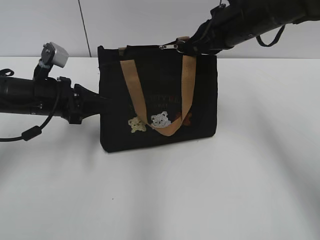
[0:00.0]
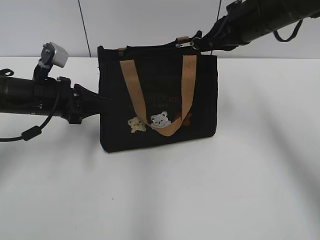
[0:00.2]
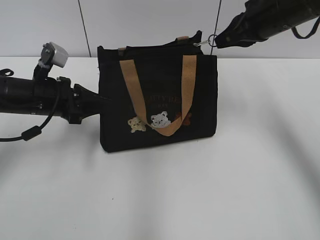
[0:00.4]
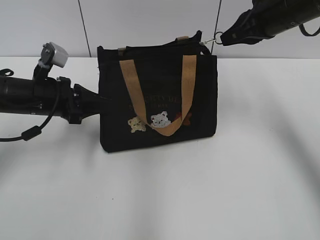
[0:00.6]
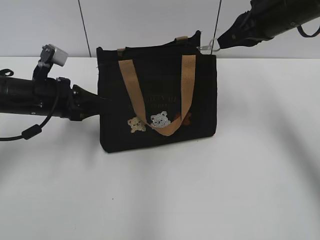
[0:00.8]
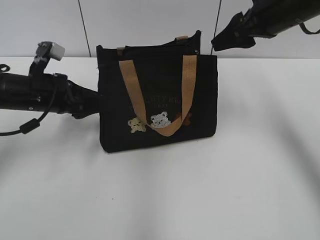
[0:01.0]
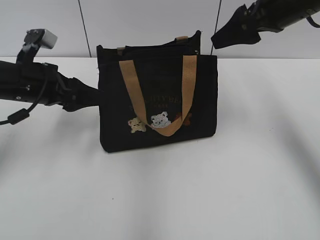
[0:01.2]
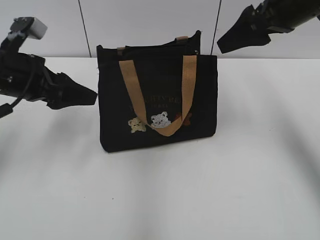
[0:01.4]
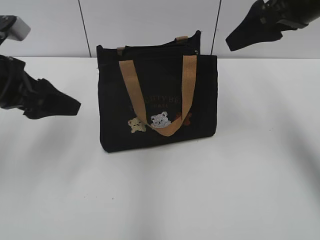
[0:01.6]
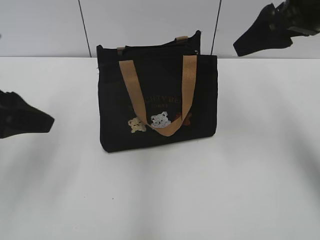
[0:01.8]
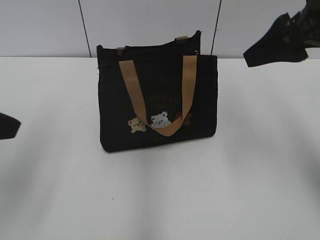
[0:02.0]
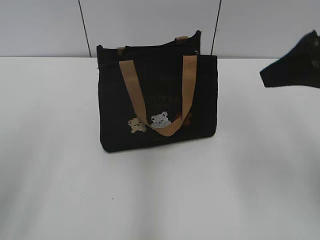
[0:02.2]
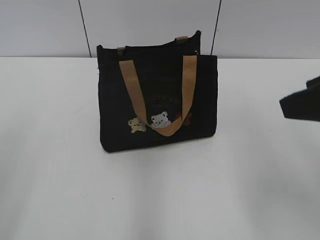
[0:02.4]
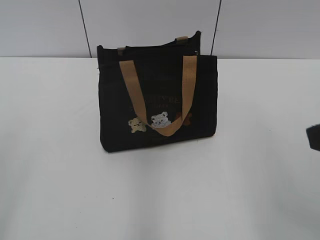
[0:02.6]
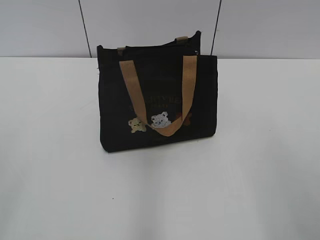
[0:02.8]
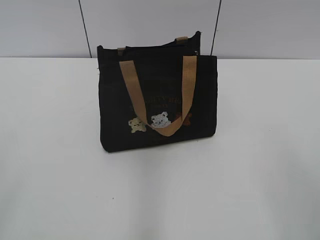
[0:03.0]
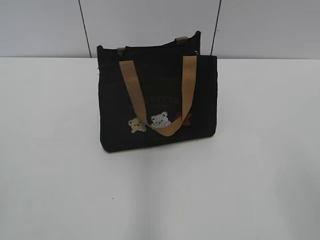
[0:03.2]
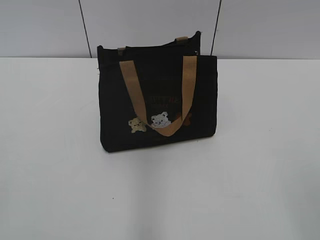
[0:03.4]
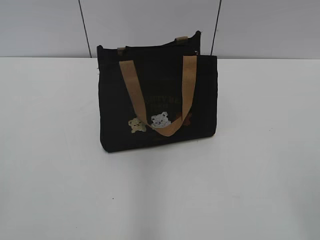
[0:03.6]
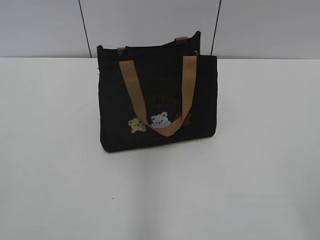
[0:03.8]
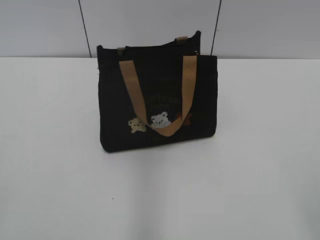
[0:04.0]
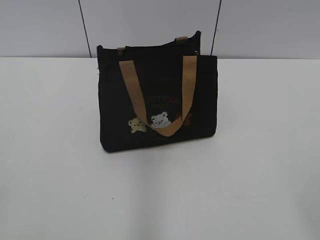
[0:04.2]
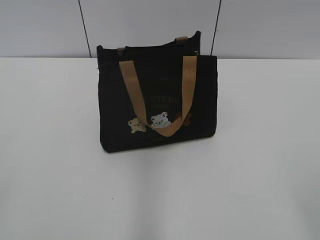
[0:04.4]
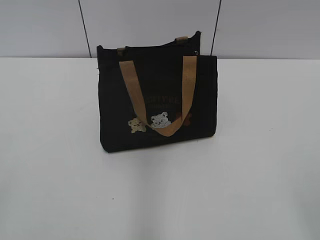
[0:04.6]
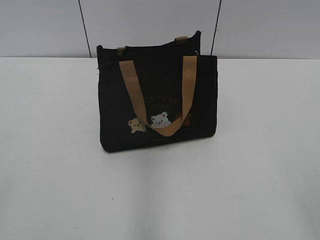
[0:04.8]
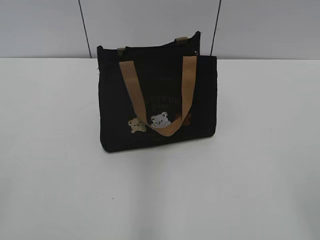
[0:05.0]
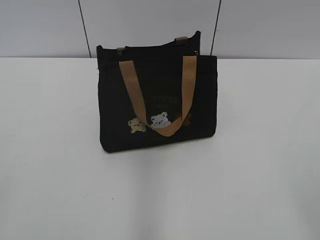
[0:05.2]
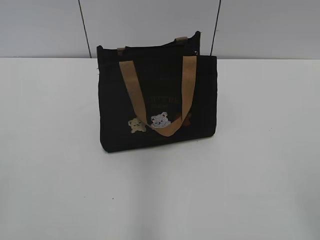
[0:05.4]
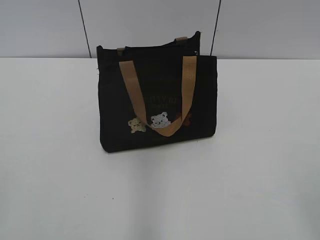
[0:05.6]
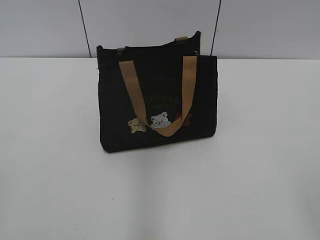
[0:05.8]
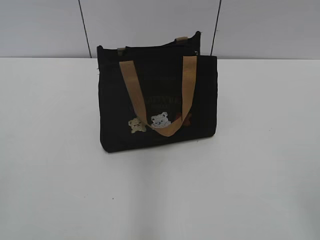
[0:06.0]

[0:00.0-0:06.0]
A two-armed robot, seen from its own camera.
Step, 1.0 to 1.2 s: Hold the bag with your left hand.
0.0 to 1.6 s: The right gripper heads upward, to the right and backward, covering roughly 10 cm, and opens; the left gripper is displaced upward and backward by about 10 cm, and opens up.
1.6 to 3.0 s: The grippers both shift backward by about 30 cm.

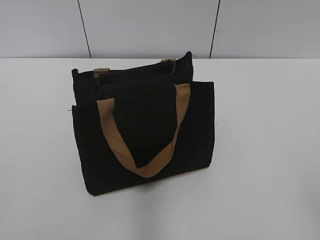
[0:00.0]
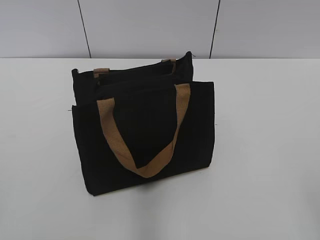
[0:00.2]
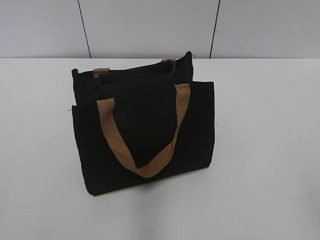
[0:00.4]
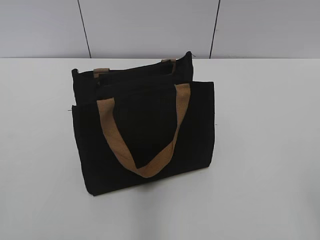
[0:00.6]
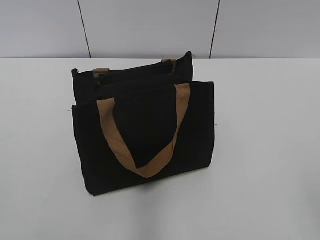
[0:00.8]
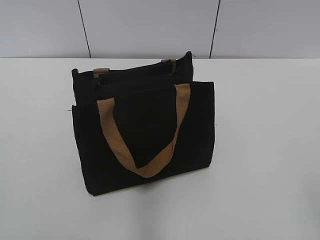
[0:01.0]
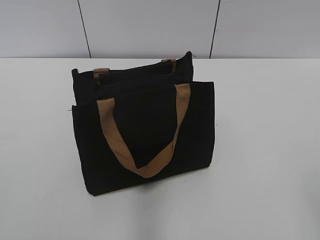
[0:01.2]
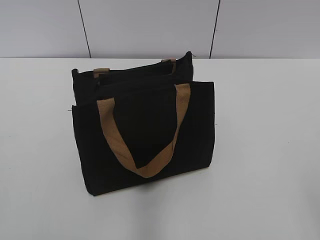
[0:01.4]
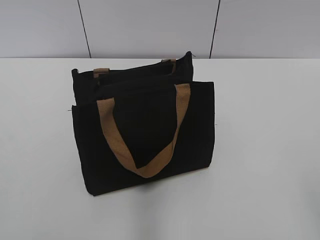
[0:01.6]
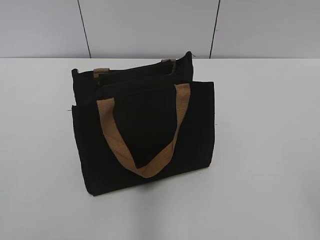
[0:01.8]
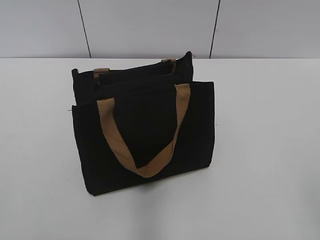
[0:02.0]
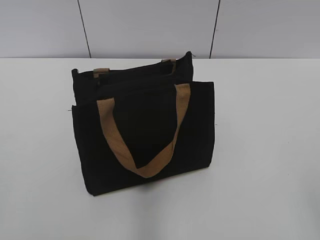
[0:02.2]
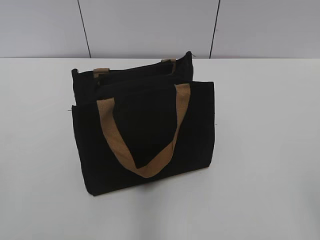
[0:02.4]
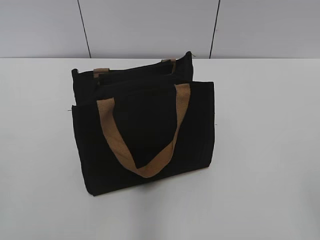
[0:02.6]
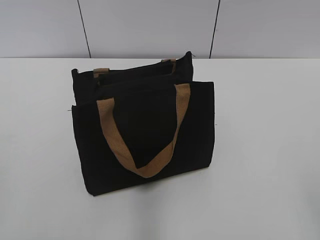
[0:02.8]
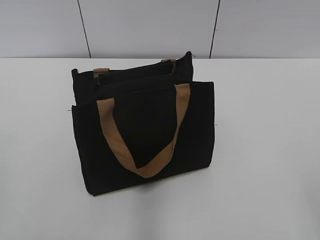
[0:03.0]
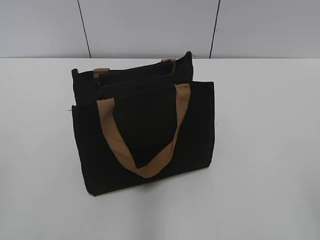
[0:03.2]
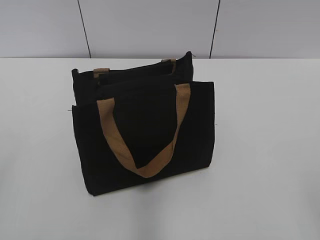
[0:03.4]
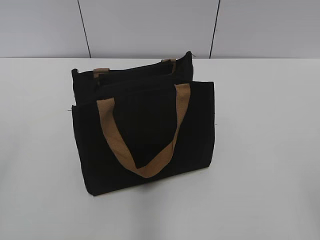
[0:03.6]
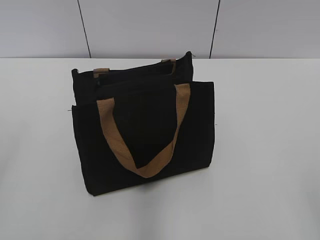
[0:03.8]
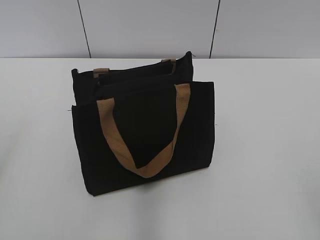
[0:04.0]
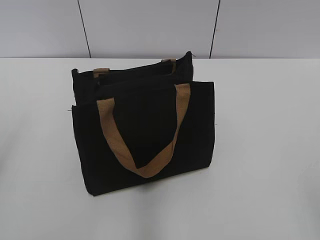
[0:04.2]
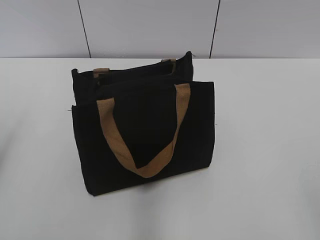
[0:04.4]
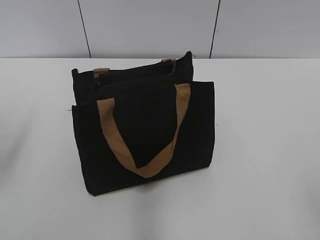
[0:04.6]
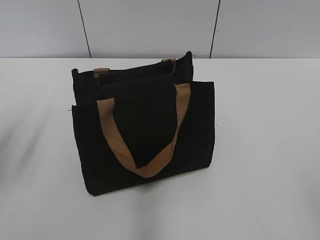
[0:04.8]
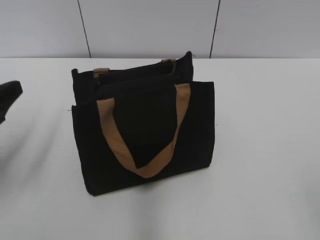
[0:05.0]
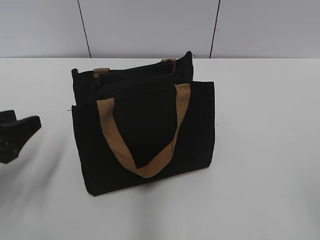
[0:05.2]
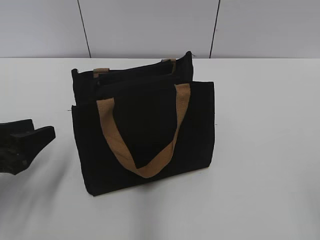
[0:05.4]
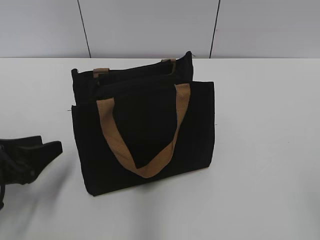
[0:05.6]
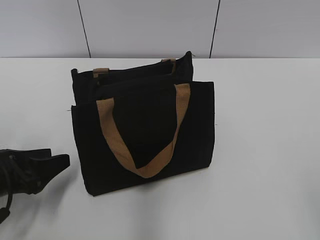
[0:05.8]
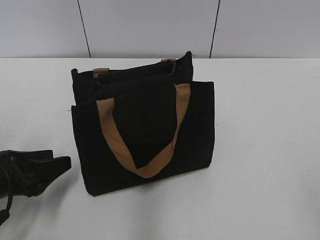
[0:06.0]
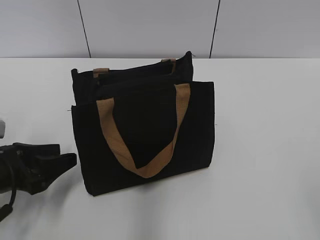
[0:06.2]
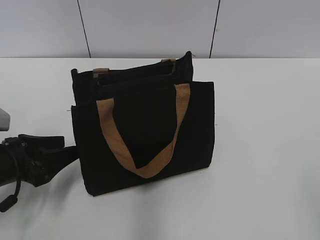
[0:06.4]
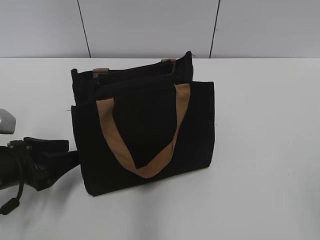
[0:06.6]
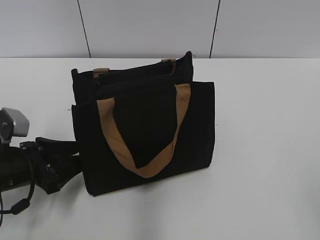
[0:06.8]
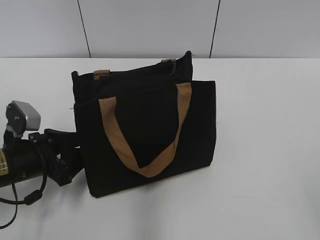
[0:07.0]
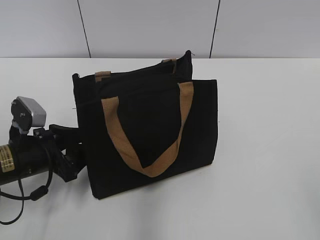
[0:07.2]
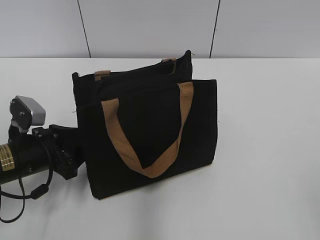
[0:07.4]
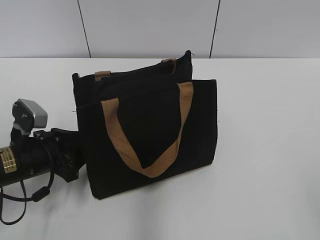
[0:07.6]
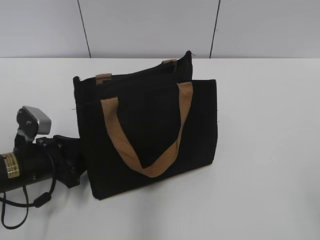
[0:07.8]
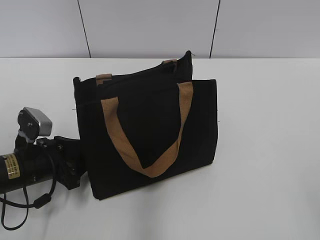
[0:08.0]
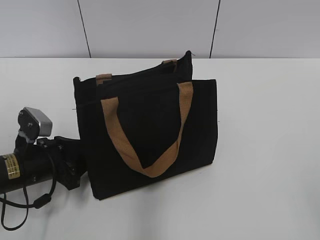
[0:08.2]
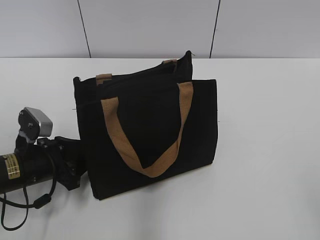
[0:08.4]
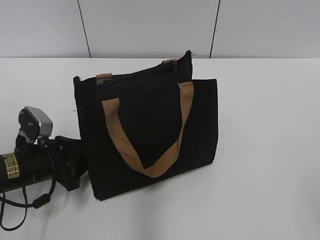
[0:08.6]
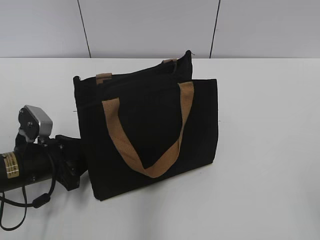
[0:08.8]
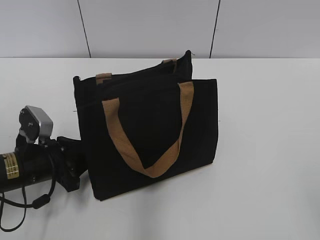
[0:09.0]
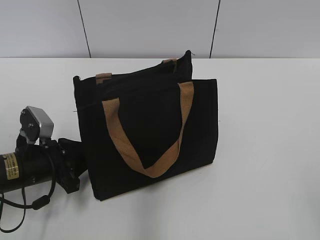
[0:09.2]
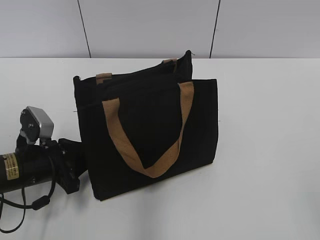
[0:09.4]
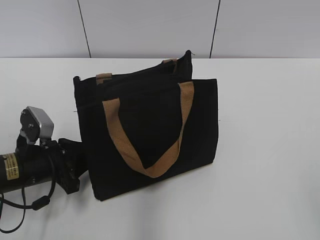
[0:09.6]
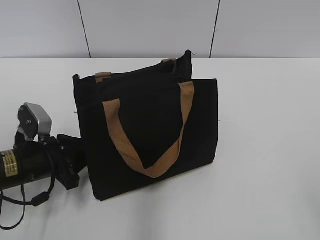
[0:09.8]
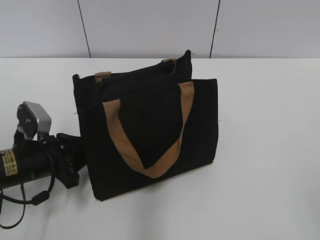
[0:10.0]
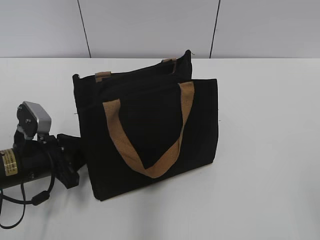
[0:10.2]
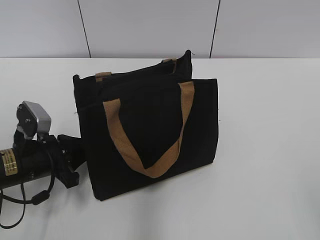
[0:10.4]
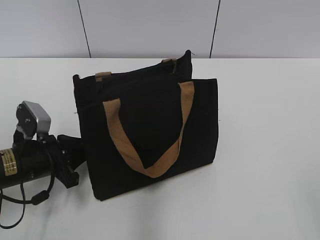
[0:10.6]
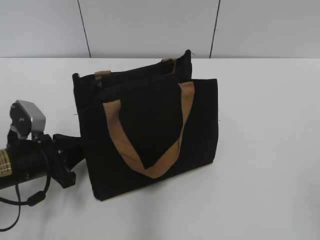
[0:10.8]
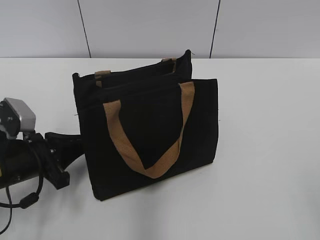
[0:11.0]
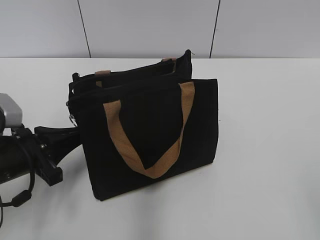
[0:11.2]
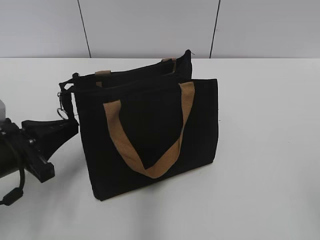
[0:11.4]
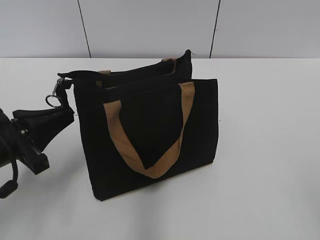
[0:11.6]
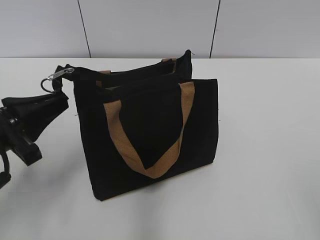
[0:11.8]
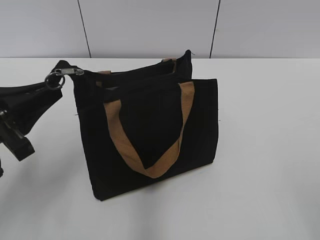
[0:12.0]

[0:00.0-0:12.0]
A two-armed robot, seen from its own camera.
4.4 to 6.0 s: The left gripper is displaced downward by about 15 cm.
6.0 to 7.6 s: The left gripper changes place by some 5 cm.
7.6 to 9.0 s: There are only small adjustments of the grippers.
9.0 to 10.4 s: The left gripper closes its fingers.
10.4 to 12.0 s: The left gripper is displaced upward and backward by some 15 cm.

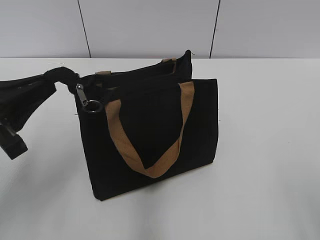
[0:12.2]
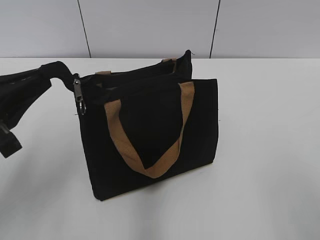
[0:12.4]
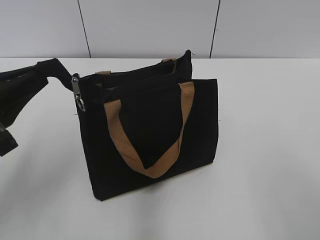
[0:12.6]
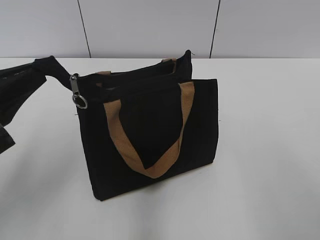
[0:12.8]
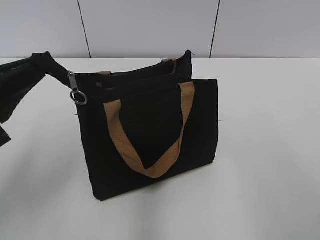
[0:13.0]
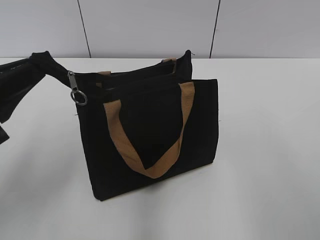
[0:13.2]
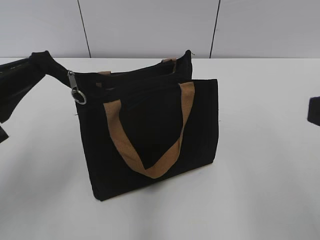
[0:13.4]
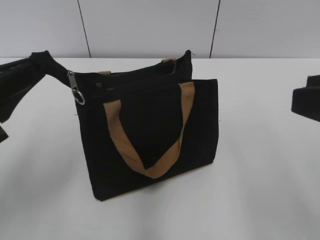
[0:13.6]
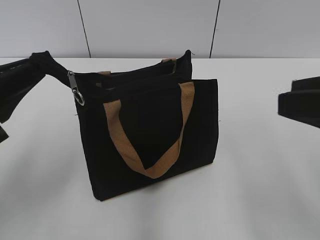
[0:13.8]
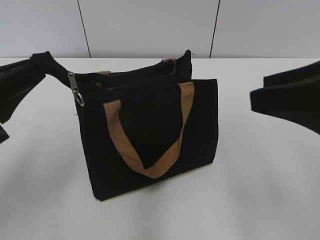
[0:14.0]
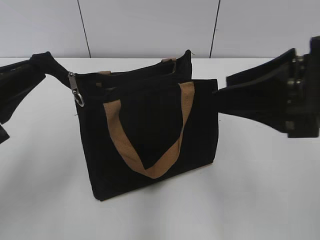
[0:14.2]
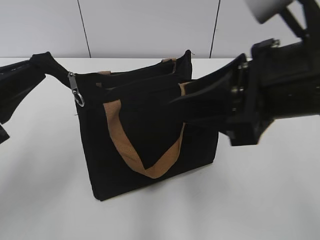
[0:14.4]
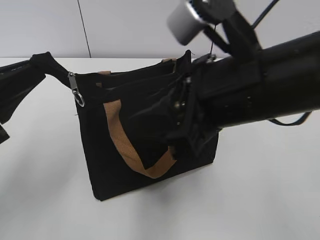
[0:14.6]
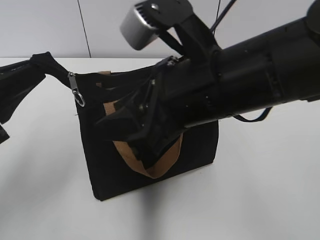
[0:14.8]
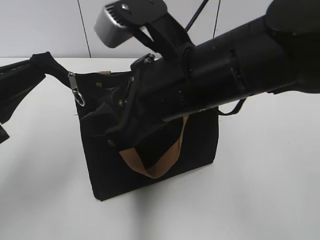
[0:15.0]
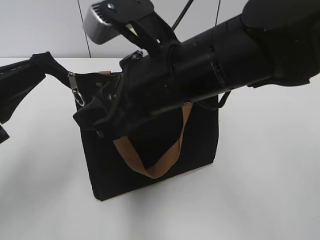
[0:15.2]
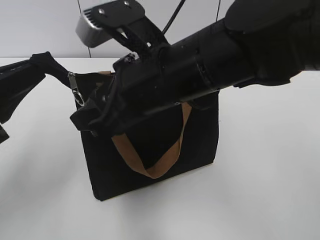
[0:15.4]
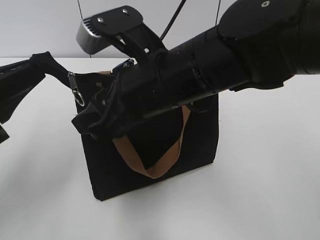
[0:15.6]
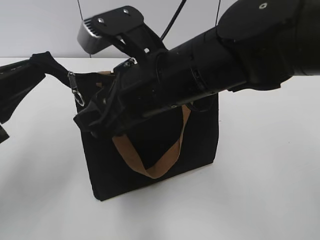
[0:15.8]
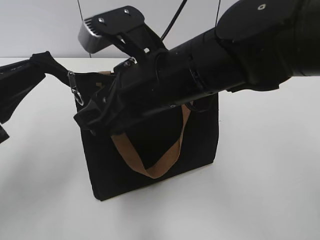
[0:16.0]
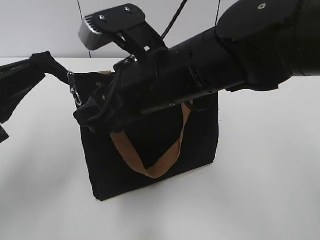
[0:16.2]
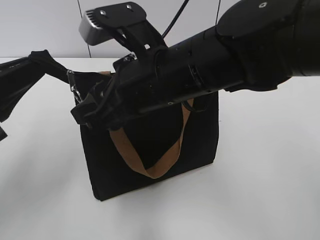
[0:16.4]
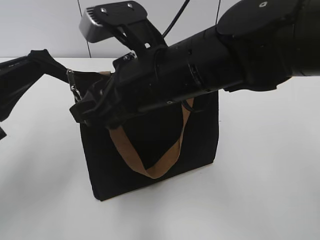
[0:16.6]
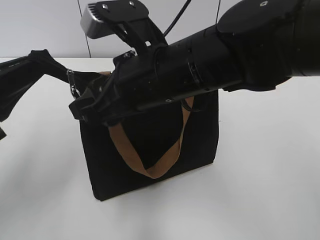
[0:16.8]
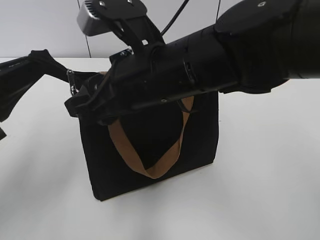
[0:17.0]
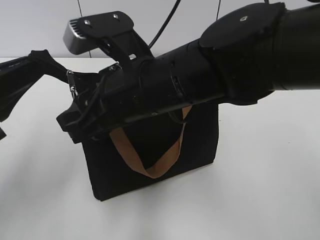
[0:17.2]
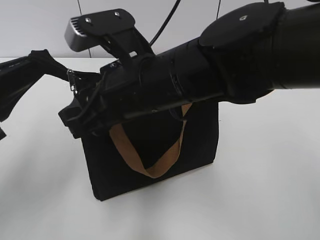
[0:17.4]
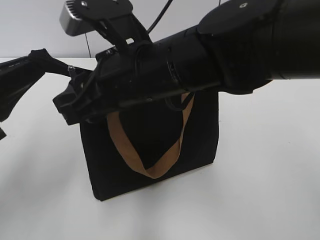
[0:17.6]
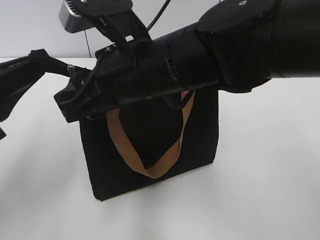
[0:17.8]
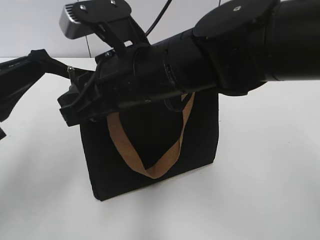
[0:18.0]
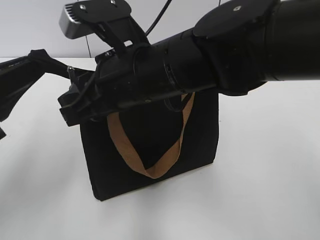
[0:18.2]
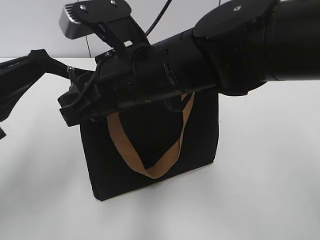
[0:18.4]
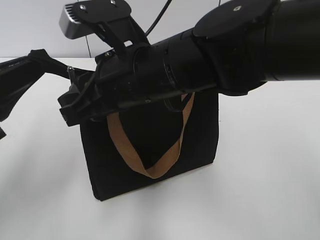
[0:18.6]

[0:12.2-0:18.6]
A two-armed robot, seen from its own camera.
12.2 to 13.8 s: The right gripper goes approximately 15 cm forward.
13.8 to 15.4 s: The right gripper goes roughly 25 cm to the left and forward.
15.4 to 18.6 s: The grippers stay close to where they were, moving slightly.
